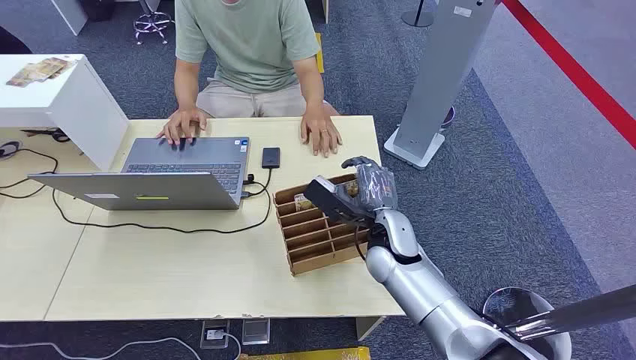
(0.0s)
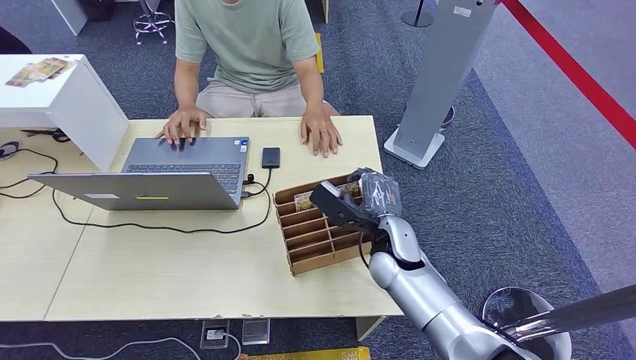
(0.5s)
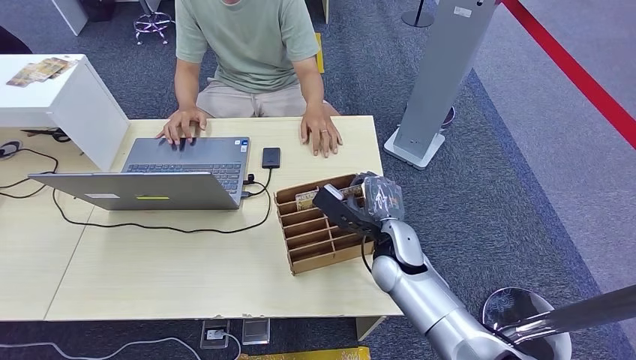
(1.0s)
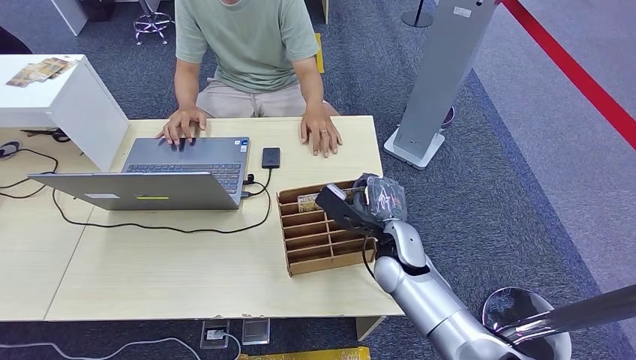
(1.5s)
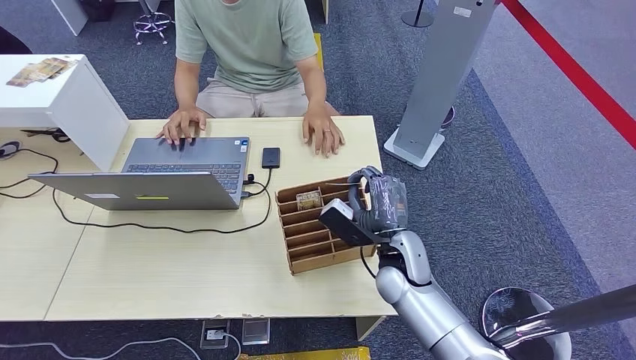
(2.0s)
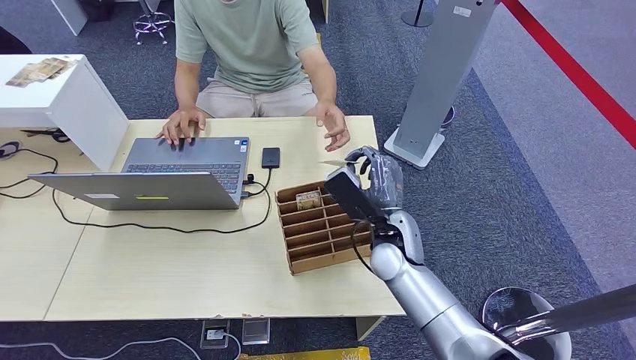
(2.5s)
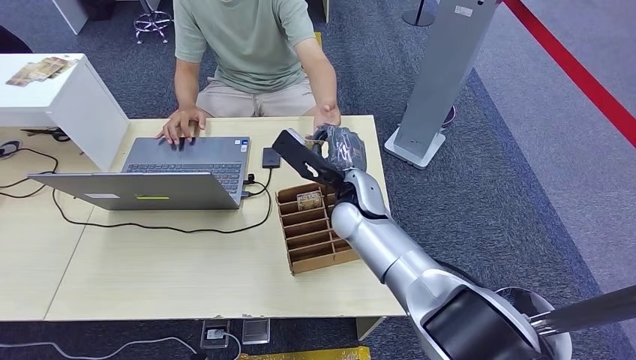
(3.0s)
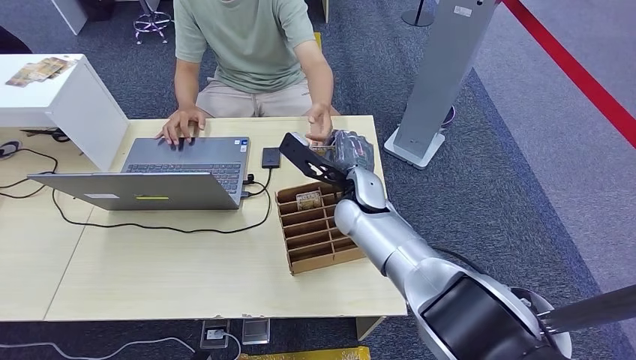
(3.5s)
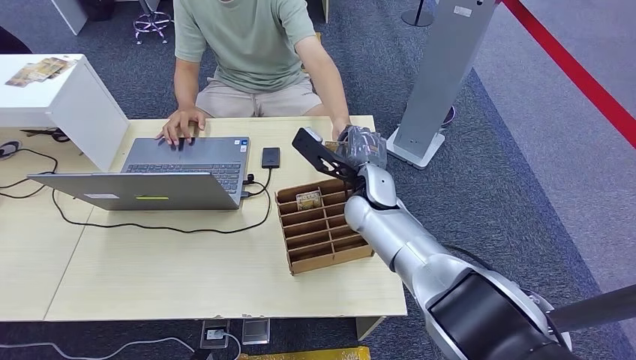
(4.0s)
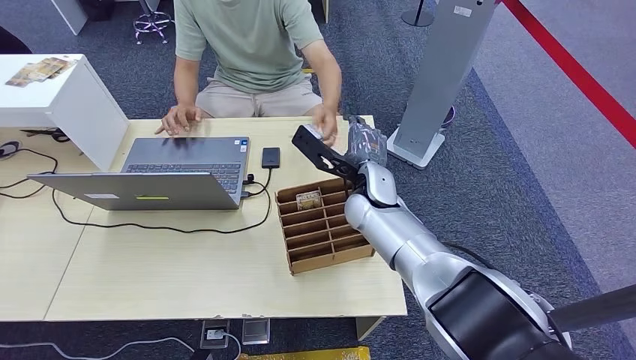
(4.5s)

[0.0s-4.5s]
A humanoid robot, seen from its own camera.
Step, 0.0s to 2.5s: Pick up the key card from the card box.
Step, 3.5s to 4.5s: Hand the key card to the target.
2.0s to 4.5s: The right hand shifts about 15 cm forward and upward.
